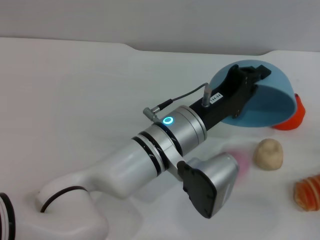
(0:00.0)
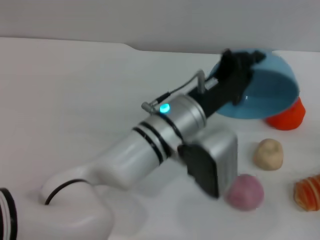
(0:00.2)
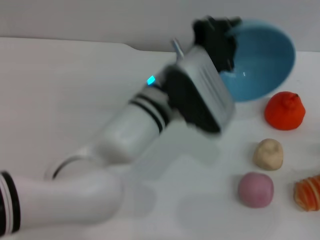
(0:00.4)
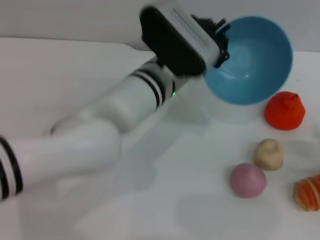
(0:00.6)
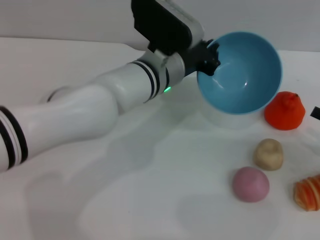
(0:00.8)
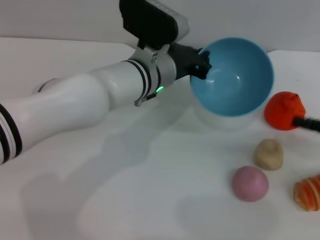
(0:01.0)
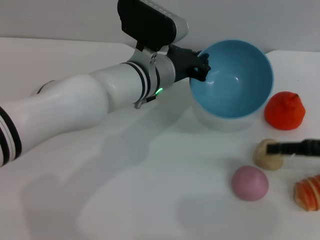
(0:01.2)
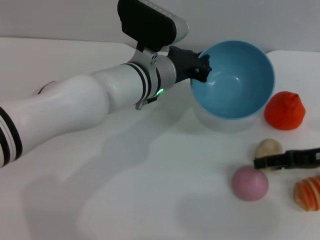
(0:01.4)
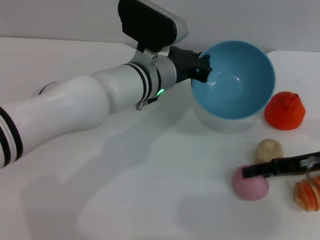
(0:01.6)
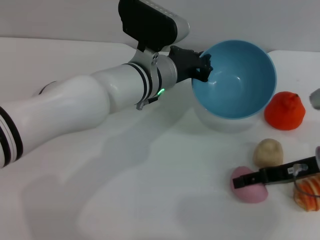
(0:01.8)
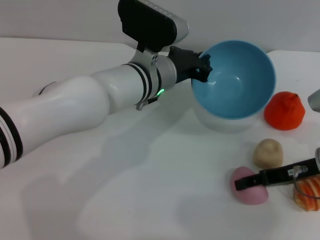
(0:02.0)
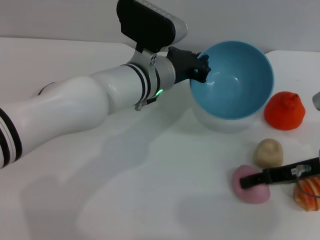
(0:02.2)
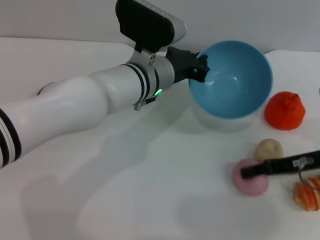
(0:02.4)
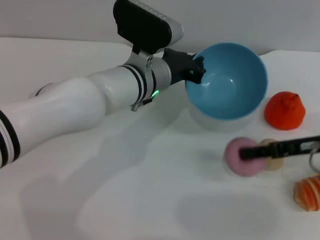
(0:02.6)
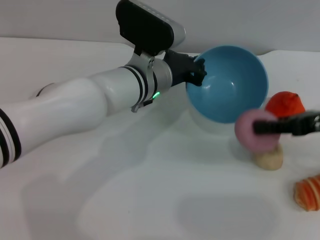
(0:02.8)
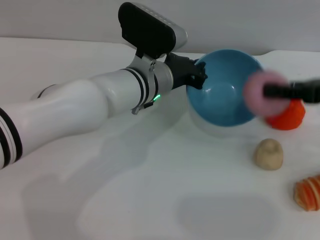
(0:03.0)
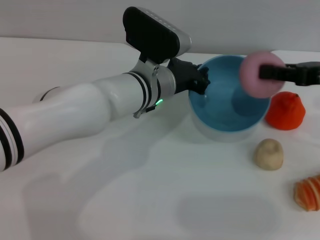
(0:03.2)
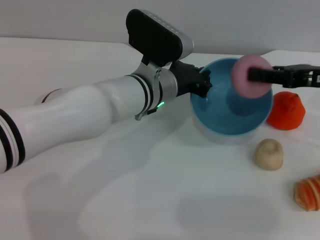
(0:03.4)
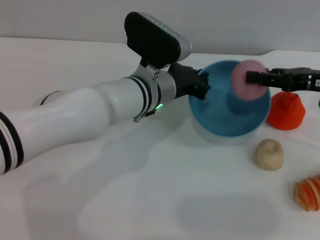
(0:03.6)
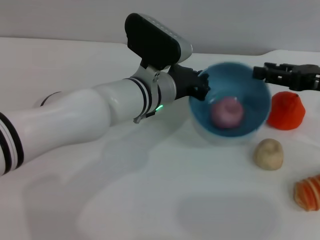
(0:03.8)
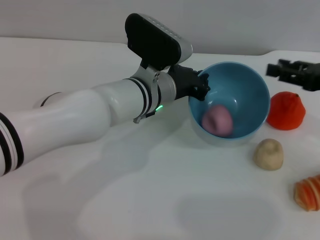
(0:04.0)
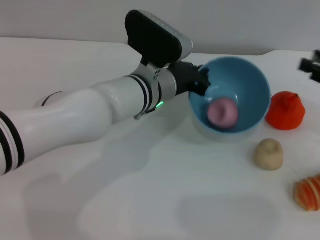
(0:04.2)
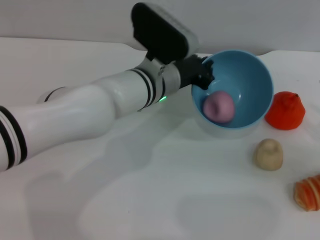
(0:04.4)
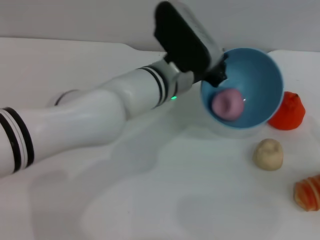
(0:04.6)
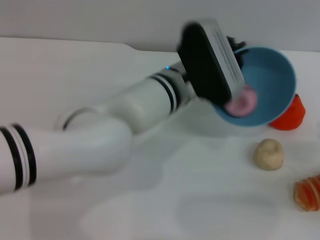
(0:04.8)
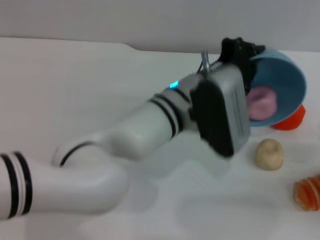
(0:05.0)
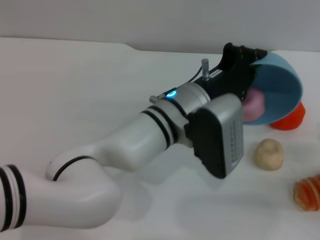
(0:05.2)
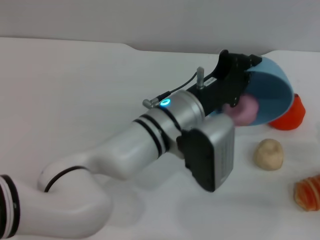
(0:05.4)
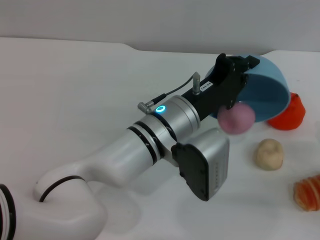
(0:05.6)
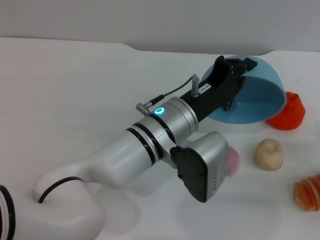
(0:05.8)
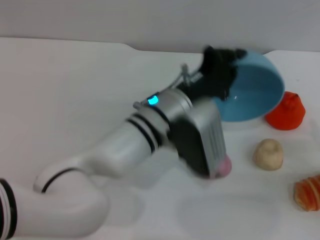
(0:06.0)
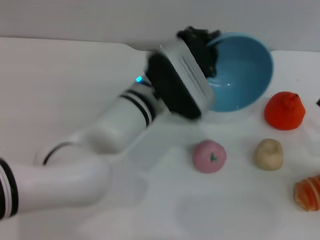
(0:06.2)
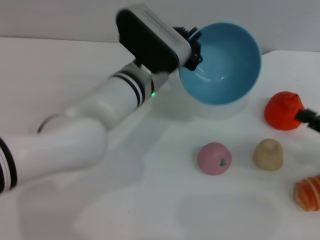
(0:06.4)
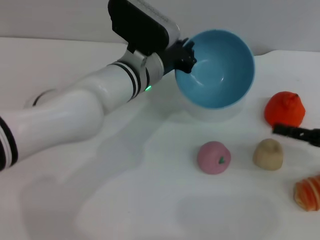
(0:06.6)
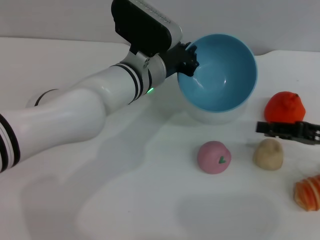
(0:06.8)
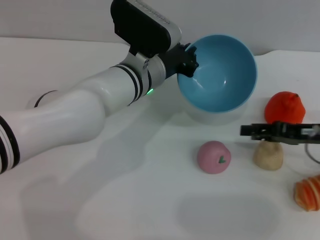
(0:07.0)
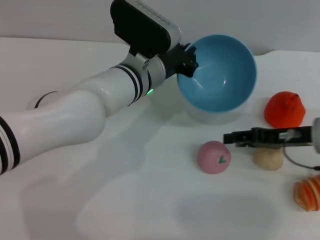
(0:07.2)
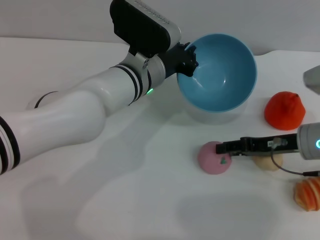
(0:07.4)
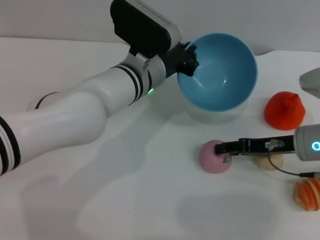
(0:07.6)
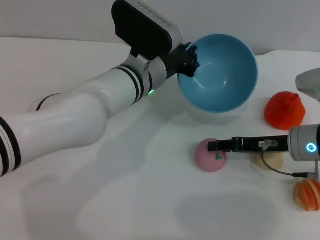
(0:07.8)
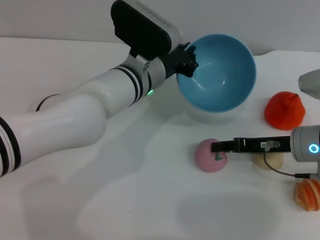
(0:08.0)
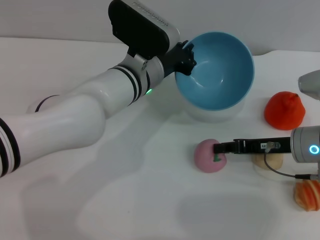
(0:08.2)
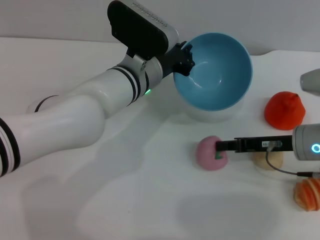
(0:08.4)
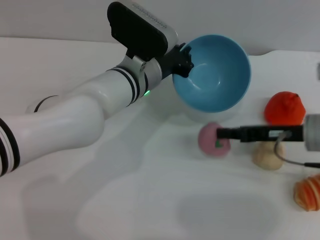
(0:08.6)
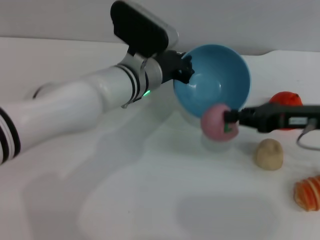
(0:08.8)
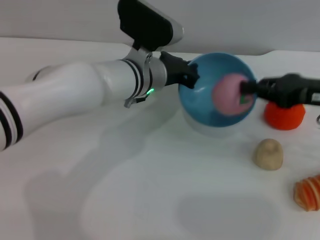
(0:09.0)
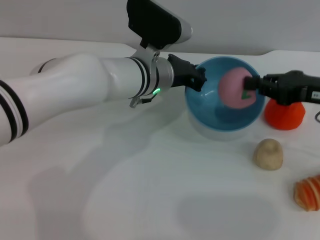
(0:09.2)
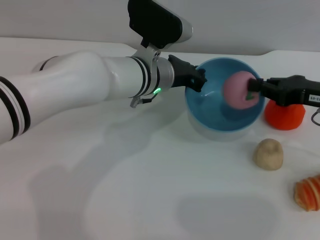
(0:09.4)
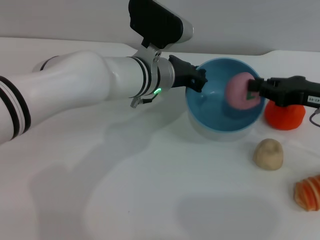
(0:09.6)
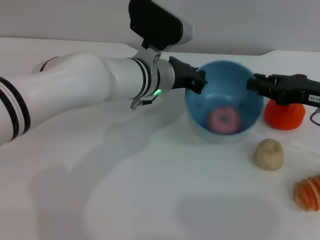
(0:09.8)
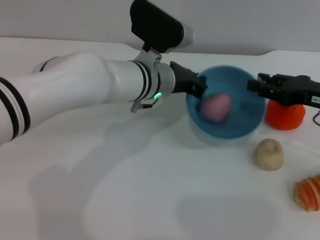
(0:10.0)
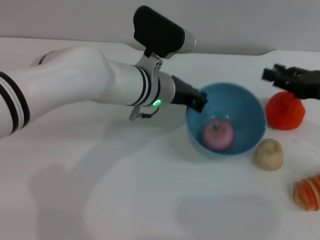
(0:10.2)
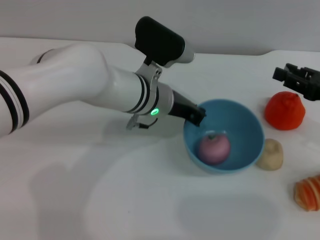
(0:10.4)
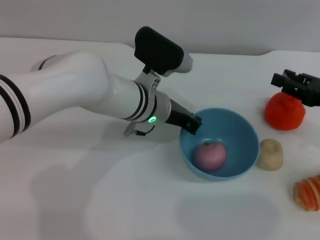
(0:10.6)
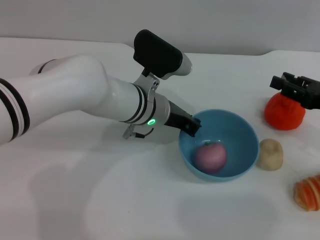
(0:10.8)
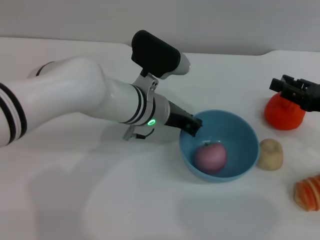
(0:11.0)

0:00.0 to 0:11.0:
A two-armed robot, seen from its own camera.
Task of the whole recording: put the peach into the blue bowl and pour it out repeatedly.
Step, 0:00.4 to 0:02.6: Pick up the peach with the right gripper.
Step, 0:02.8 to 0:04.0: Place the peach into the bowl.
Step, 0:04.2 to 0:06.2: Pour the peach out of bowl.
Step, 0:06.4 to 0:08.8: Pick up the peach with the right gripper.
Step, 0:09.0 to 0:09.8: Place the peach into the bowl.
0:00.0 to 0:01.6: The left gripper heads forward, covering roughly 10 cm, while the right gripper travels forward, to the left and upward by roughly 15 cm.
0:01.6 to 0:03.2: The right gripper goes approximately 10 cm upward, and closes up.
0:03.2 to 0:04.8: The right gripper heads downward, backward and to the right, covering roughly 20 cm, and opens.
0:06.2 to 0:07.8: The right gripper heads to the left and forward, covering roughly 15 cm.
0:07.8 to 0:09.4: The right gripper heads upward and to the right, covering about 10 cm, and closes.
0:09.4 to 0:11.0: The right gripper moves some 5 cm, and opens its fingers.

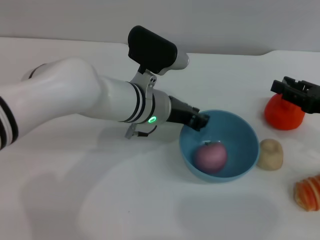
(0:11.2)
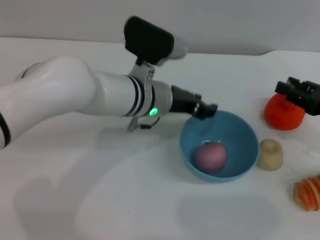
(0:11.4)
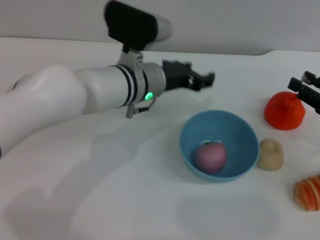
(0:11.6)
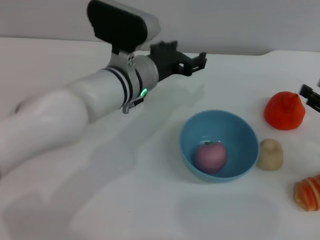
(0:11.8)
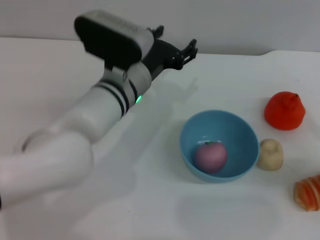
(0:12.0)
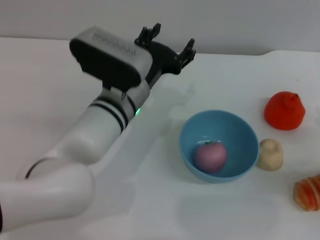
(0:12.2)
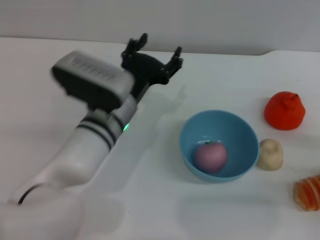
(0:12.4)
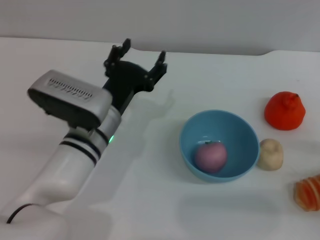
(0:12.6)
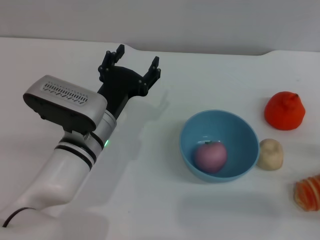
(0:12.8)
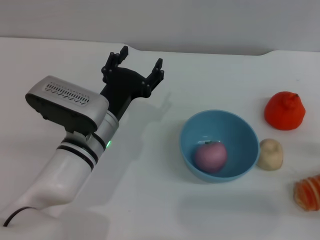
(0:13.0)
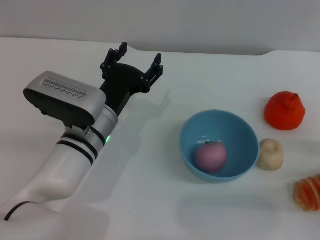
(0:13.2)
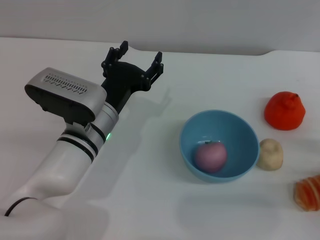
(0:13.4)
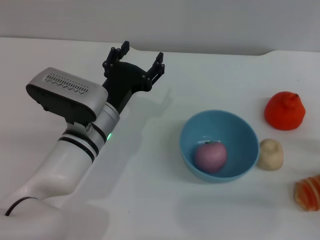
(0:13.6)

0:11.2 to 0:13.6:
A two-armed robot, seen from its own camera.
Task of the whole recording: put the peach into the blue bowl and pour it out repeatedly.
0:11.2 to 0:12.4: The right gripper travels backward and downward by about 10 cm; the left gripper shifts by roughly 5 cm, and opens its fingers.
0:12.4 to 0:13.6: There are only small adjustments of the grippers.

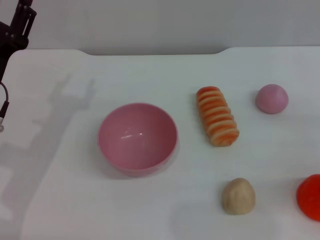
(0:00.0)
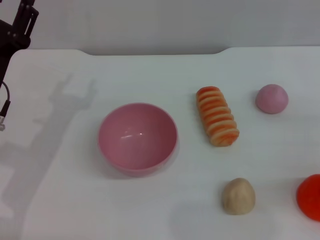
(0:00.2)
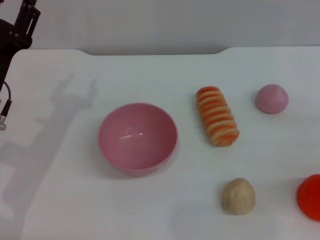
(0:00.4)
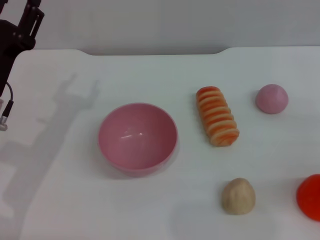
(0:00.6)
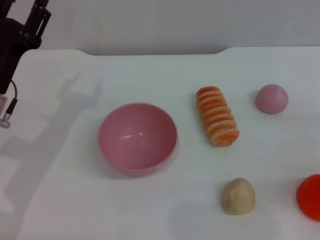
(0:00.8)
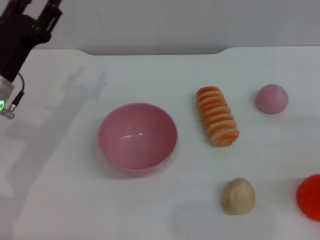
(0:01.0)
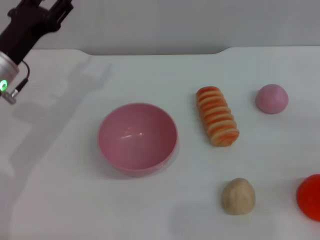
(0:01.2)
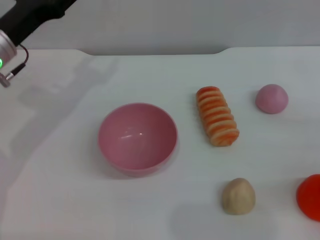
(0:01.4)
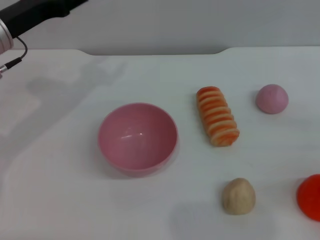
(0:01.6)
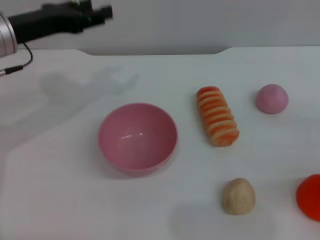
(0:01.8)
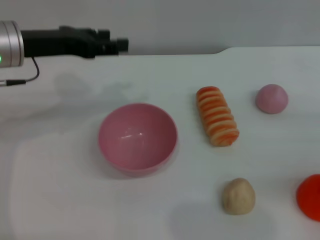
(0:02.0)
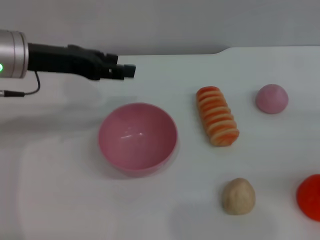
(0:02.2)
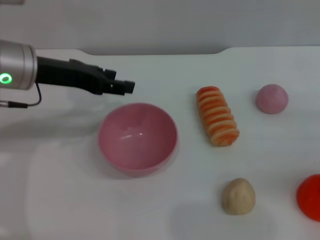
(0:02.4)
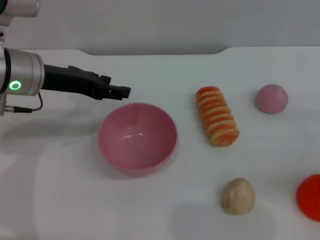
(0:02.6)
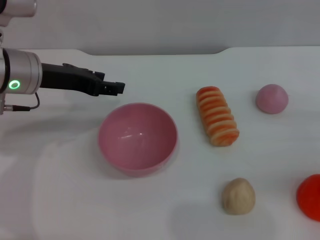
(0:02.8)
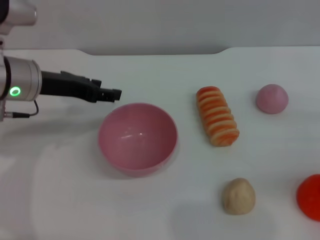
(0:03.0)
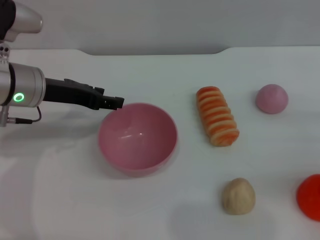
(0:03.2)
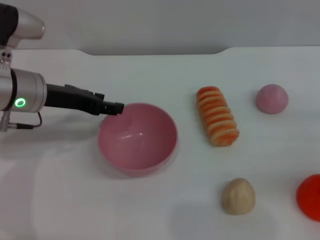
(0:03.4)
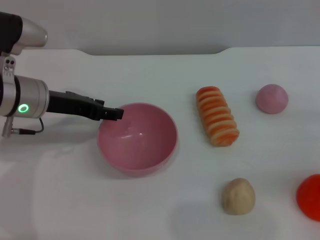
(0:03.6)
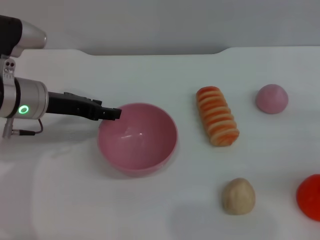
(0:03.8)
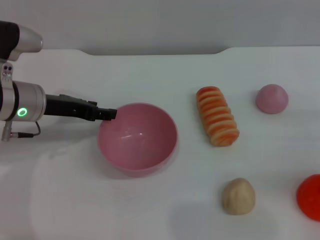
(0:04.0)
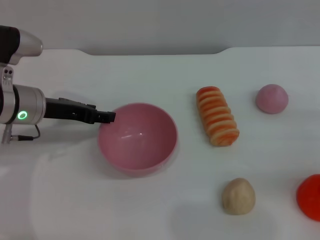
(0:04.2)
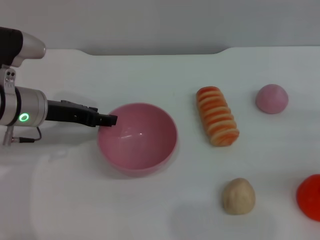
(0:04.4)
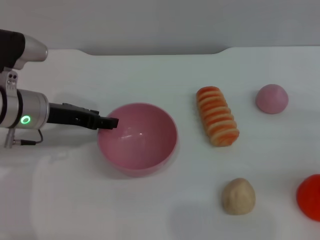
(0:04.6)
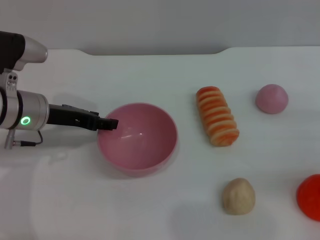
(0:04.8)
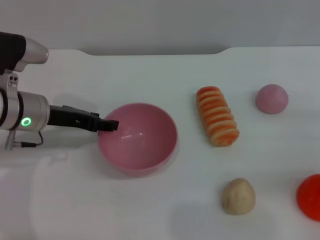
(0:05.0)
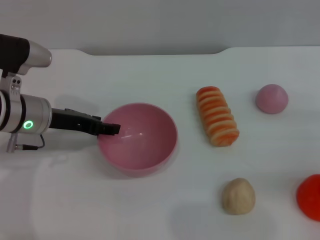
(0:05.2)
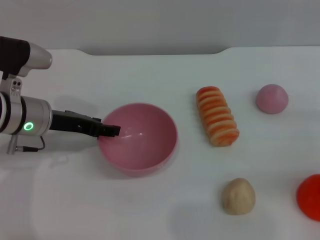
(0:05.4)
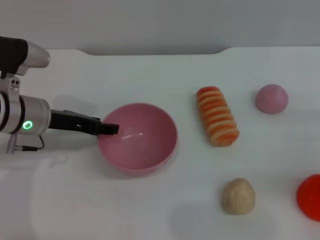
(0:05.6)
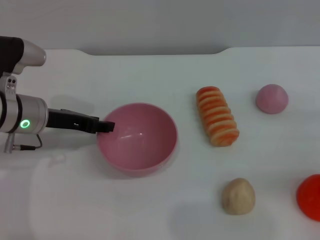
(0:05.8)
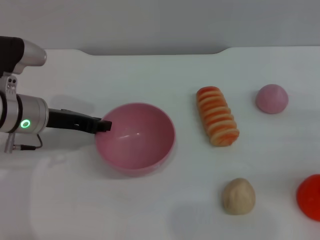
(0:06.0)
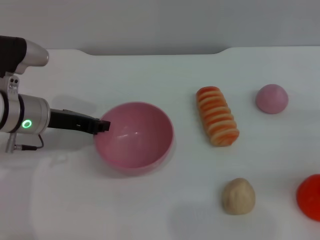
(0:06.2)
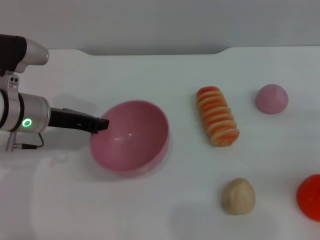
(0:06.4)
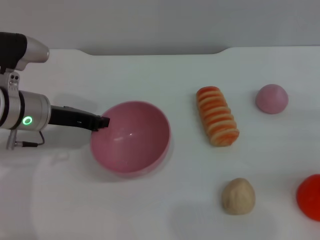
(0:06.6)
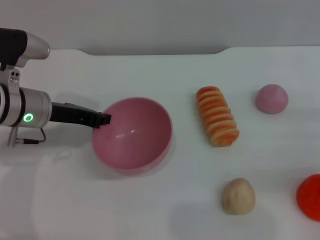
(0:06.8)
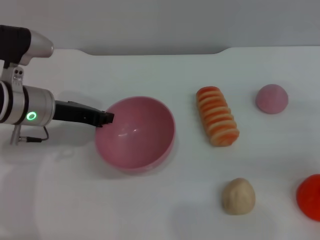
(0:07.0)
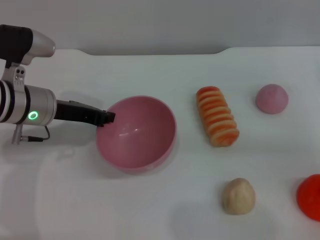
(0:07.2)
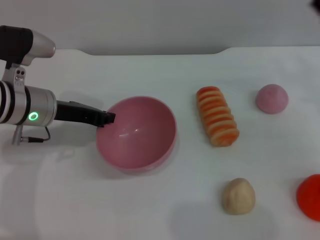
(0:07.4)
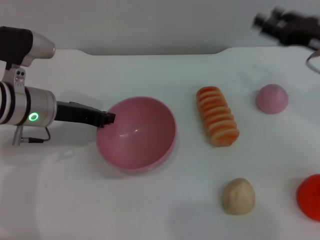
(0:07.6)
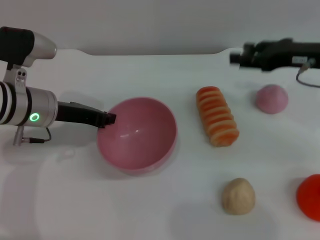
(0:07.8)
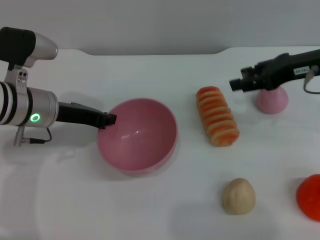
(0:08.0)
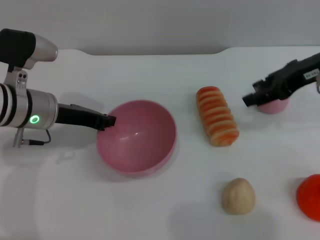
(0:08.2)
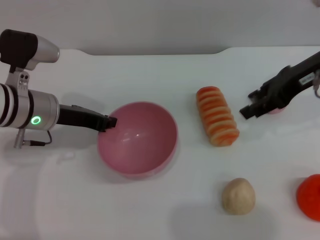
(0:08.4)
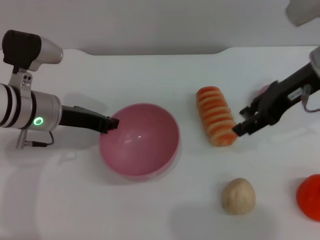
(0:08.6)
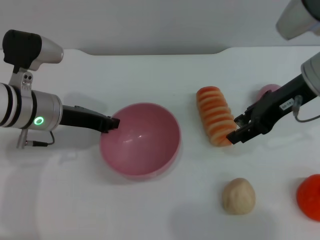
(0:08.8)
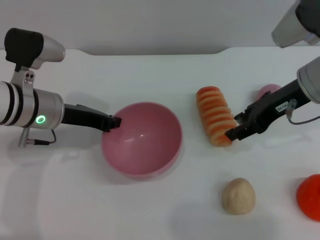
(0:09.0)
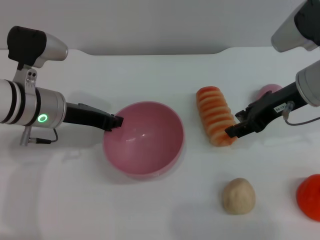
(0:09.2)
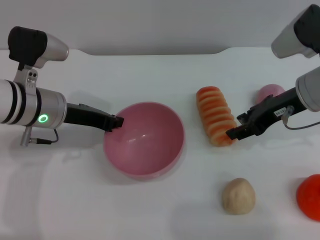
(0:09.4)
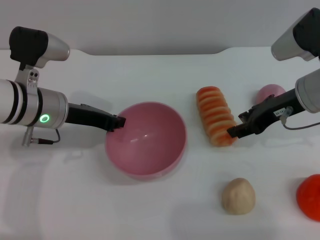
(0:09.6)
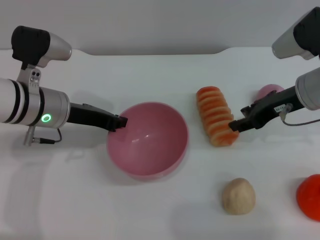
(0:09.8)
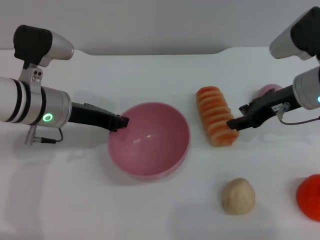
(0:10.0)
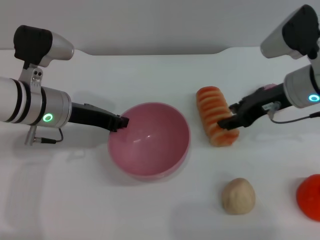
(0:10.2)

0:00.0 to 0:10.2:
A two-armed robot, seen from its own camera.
Task of the whole recording: put the bread into the pink bowl and pour it out repeatedly.
Step, 0:00.0 to 0:08.0: Pick up the bowl with the left gripper.
0:00.0 to 0:01.4: The left gripper goes approximately 10 cm forward and upward.
0:03.0 to 0:04.4: The grippers stay close to where they were, moving slightly.
0:04.4 to 0:05.8: Both grippers stay about where they are.
0:05.8 to 0:07.2: The left gripper closes, while the right gripper shifts about 5 cm forward.
0:07.2 to 0:08.8: The right gripper goes some 15 cm to the left and upward.
0:08.8 to 0:10.2: The right gripper moves about 5 cm.
